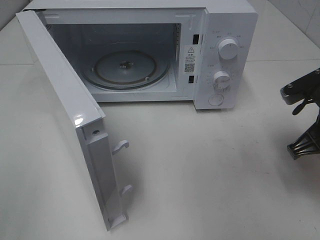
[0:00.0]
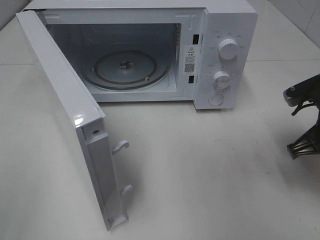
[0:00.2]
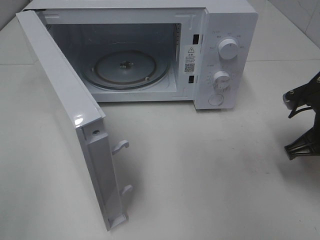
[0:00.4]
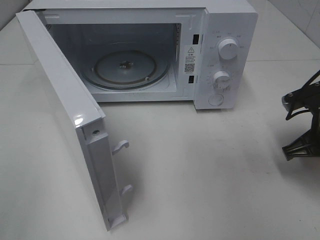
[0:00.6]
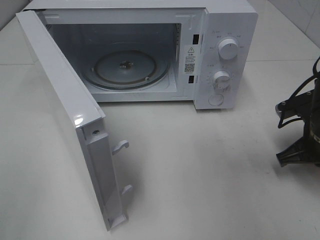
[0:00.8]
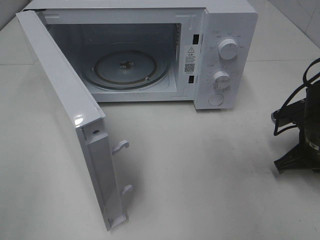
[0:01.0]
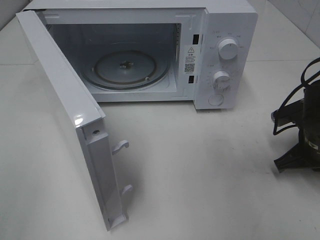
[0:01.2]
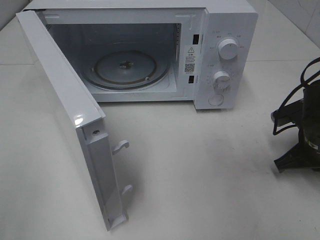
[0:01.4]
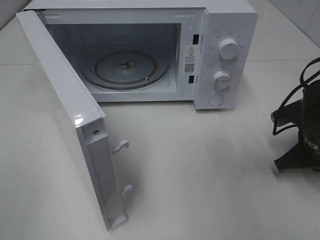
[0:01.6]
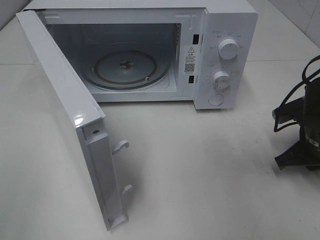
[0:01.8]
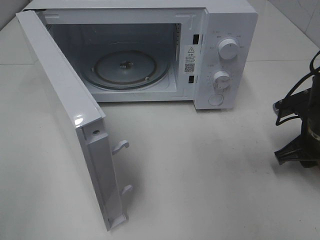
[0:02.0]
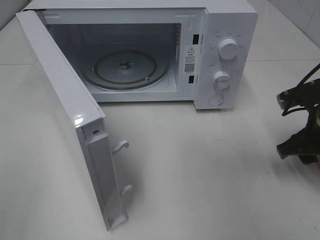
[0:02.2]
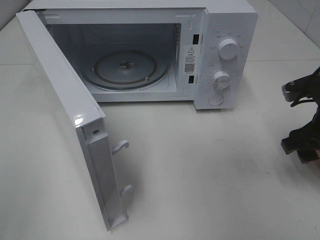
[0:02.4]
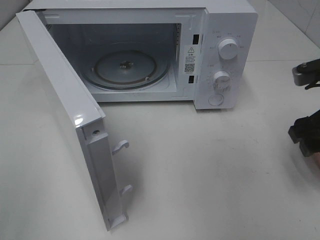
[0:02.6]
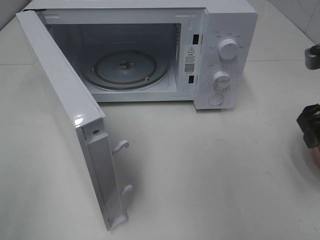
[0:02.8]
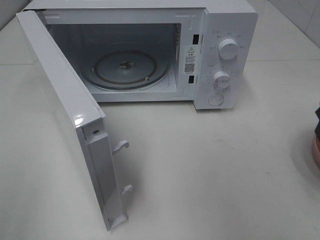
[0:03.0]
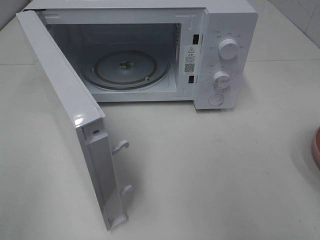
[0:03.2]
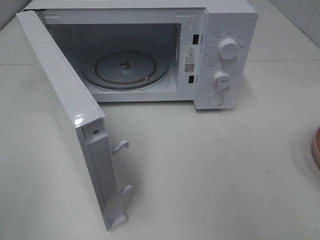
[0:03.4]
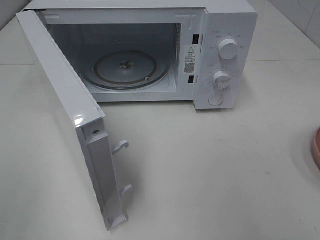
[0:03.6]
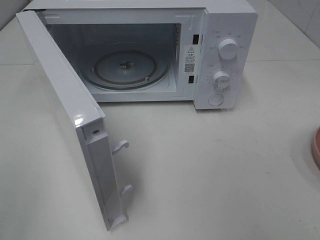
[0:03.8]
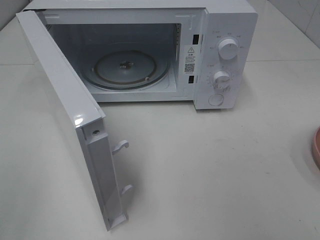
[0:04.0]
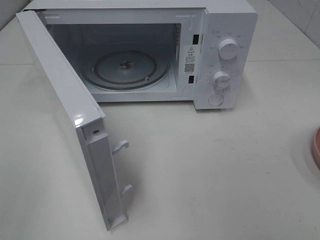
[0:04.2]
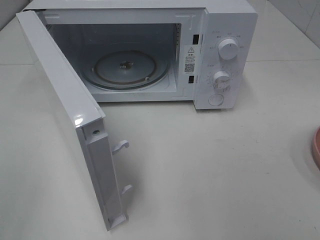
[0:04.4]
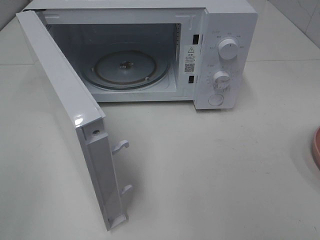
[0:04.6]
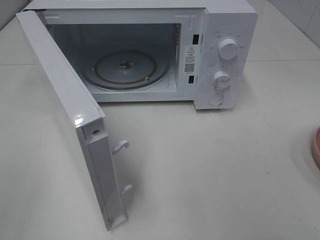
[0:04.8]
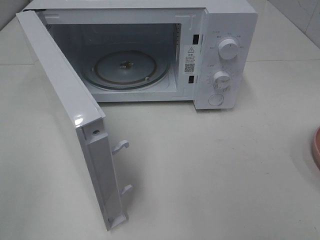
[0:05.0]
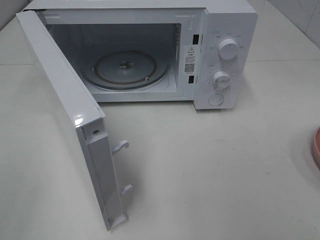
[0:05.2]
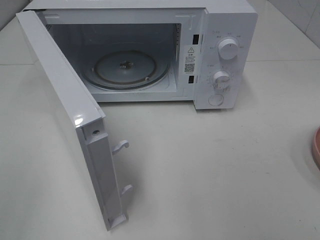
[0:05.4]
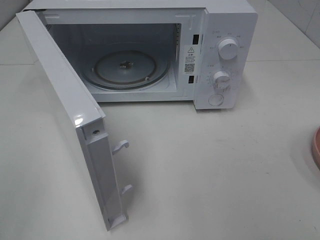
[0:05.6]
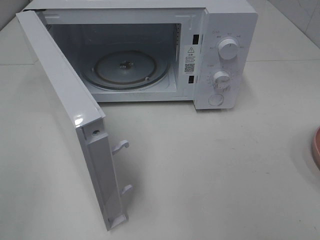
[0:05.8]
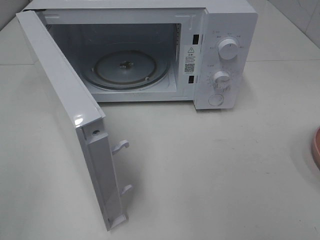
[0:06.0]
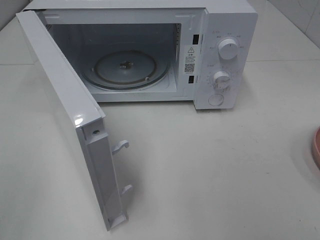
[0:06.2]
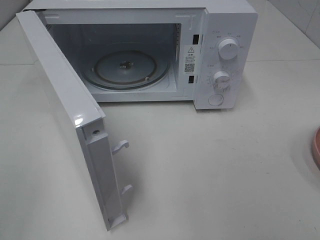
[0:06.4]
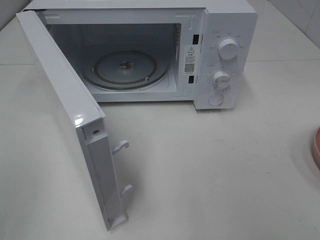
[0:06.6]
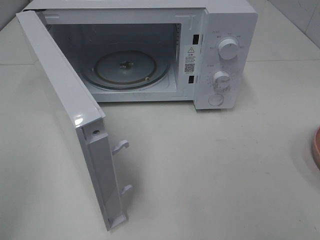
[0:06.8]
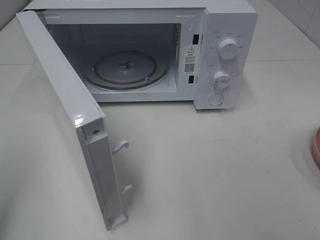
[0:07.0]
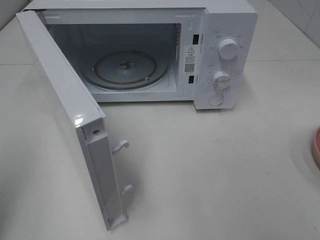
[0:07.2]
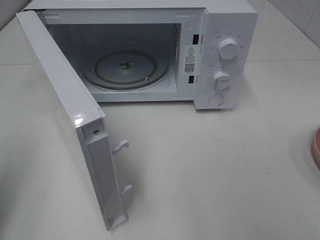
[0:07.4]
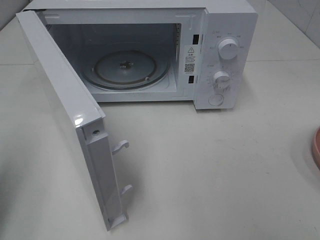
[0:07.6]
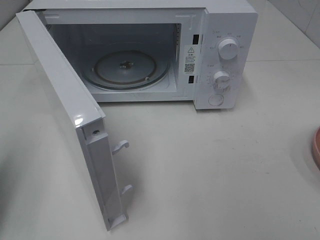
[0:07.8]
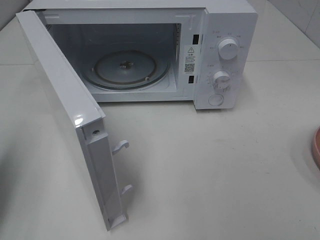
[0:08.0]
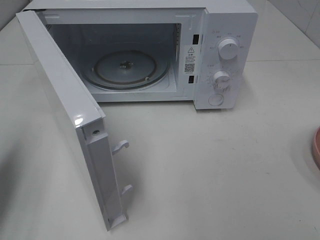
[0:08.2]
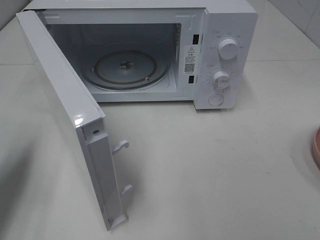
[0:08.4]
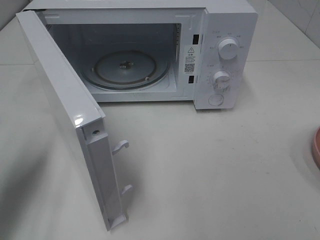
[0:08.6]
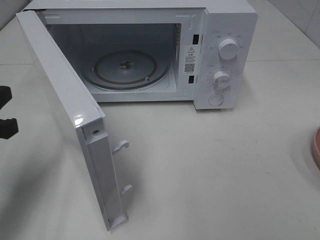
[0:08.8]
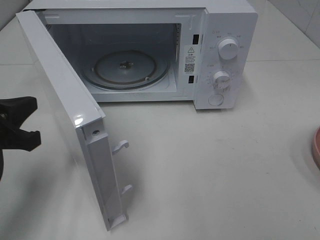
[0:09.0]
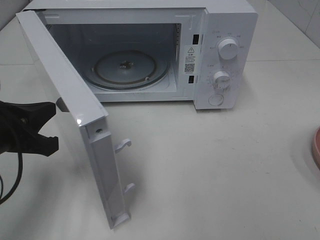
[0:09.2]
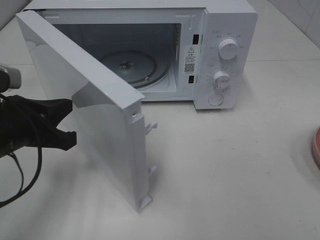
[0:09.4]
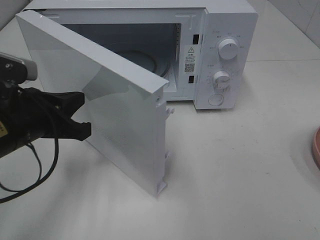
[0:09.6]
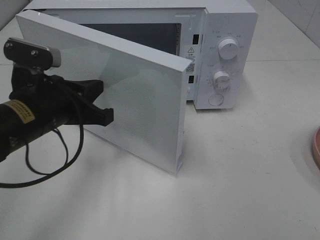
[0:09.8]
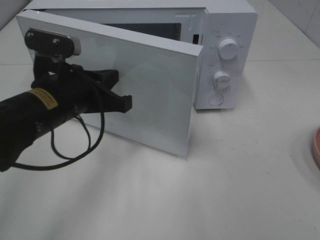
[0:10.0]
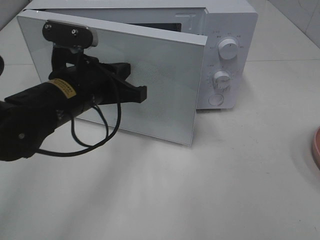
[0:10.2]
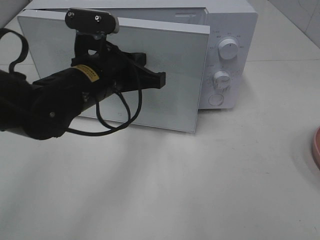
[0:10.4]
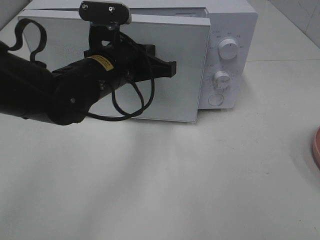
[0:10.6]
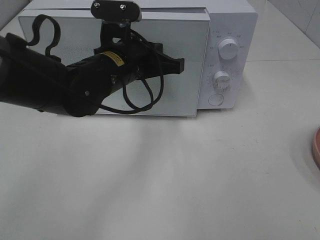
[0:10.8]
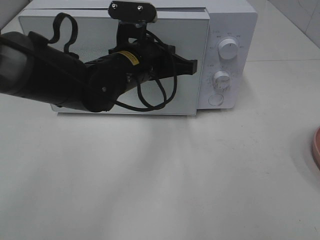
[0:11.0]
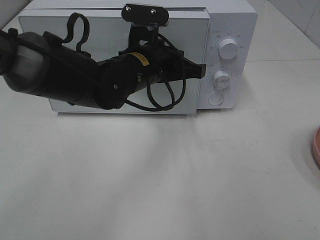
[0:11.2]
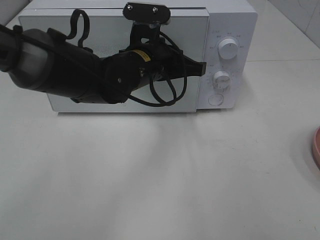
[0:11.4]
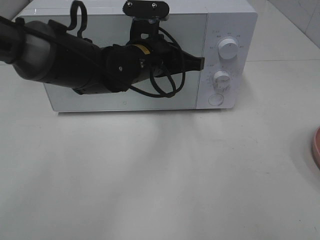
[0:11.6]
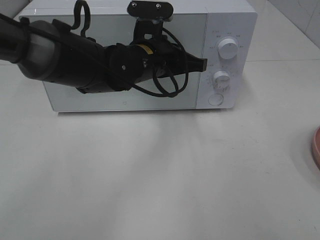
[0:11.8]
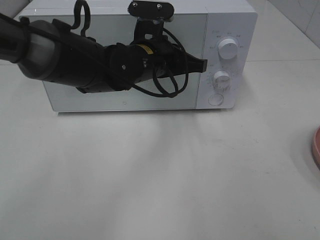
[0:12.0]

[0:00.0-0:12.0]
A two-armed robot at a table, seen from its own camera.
Task of the whole recording: Heat Sandwich.
Step, 0.0 to 2.4 s: Right hand: place the plate on the table.
0.0 to 1.6 s: The right gripper heads downward, covering approximately 10 cm.
1.6 to 3.0 s: The right gripper heads upward and backward, covering some 20 cm, and opens its fingers.
3.0 to 4.4 s: The right gripper is displaced backward by approximately 20 cm.
4.4 to 6.0 s: Both grippers stay put.
6.0 to 7.6 s: The left gripper goes approximately 15 cm forward, and closes.
7.6 to 9.0 s: The left gripper moves to the right, downward and forward, roughly 15 cm.
9.0 to 10.4 s: The left gripper shifts some 20 cm to the right and forward.
10.4 to 12.0 s: The left gripper moves to the right and forward, approximately 10 cm.

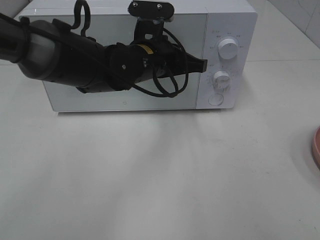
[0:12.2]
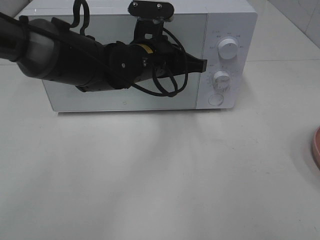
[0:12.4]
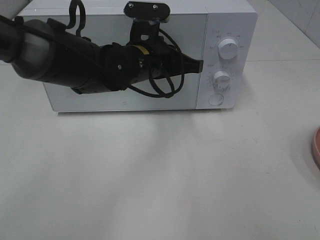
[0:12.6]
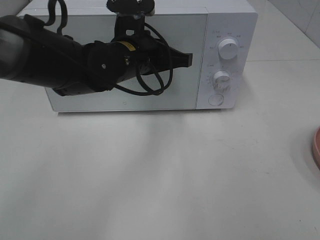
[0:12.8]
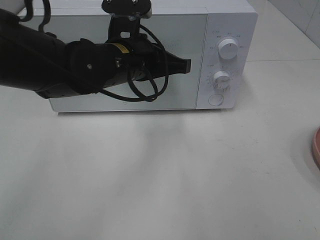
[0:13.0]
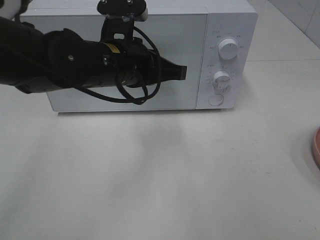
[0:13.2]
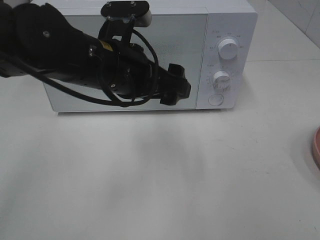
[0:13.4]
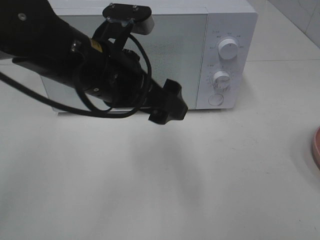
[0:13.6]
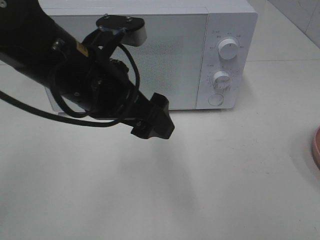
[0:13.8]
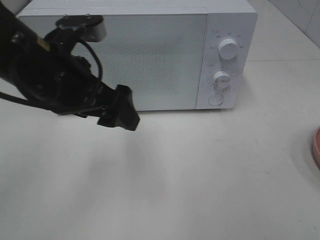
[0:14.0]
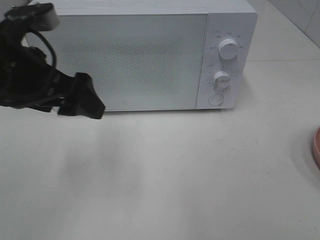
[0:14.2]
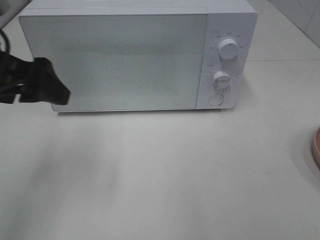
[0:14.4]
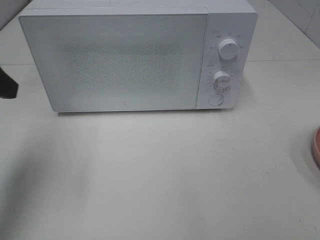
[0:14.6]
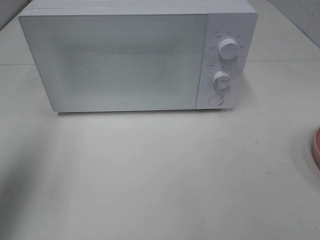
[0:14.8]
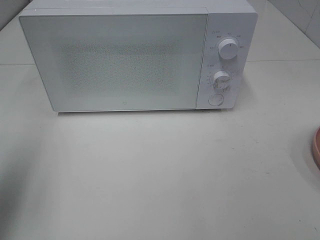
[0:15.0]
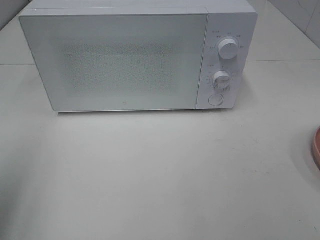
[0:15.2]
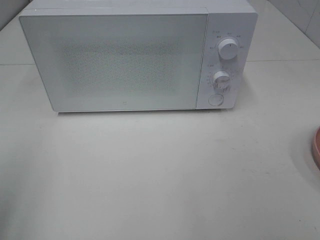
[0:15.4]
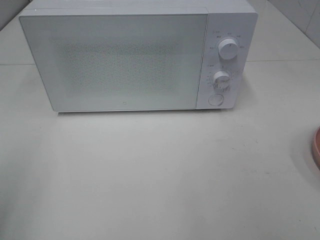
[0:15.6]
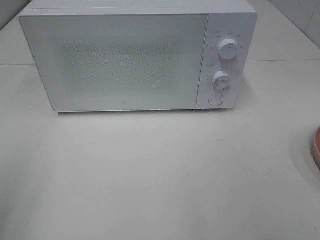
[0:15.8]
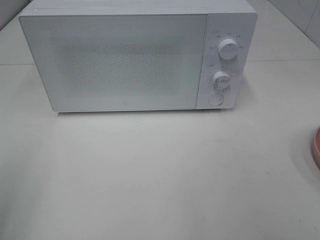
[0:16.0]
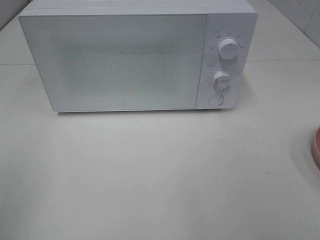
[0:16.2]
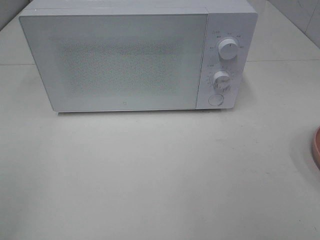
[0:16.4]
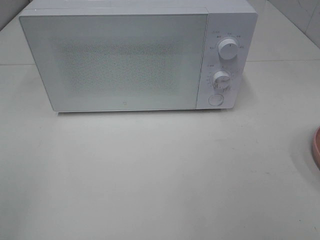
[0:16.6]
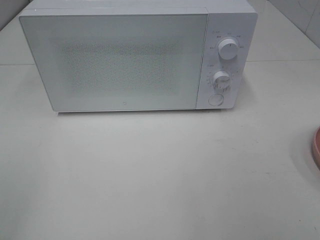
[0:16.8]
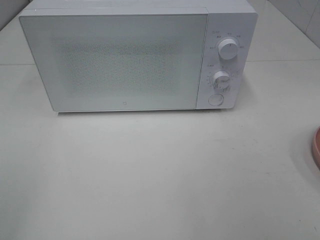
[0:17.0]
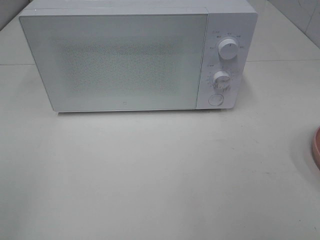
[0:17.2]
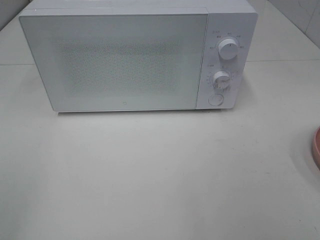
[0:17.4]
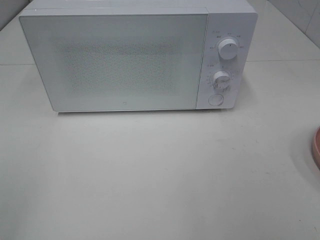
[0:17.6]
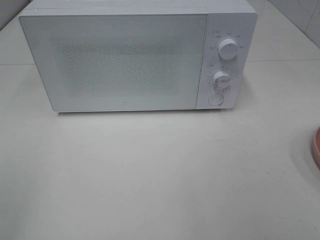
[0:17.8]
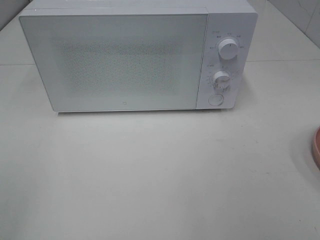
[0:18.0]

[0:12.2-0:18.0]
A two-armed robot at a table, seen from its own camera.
Task of the whole recording: Heat Sandwich.
12.2 to 13.6 s: The left gripper travels backward, upward and to the left by some 15 cm, and opens up.
13.6 to 15.0 s: The left gripper shifts about 25 cm to the left.
15.0 to 16.6 s: The left gripper travels backward by approximately 15 cm.
16.6 to 18.0 s: Neither gripper changes place.

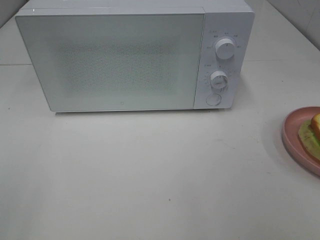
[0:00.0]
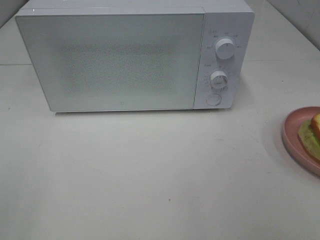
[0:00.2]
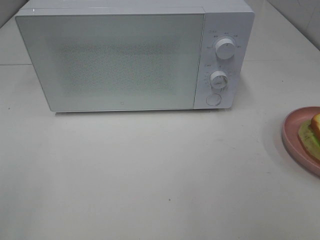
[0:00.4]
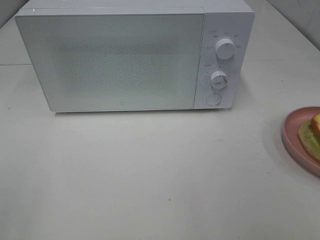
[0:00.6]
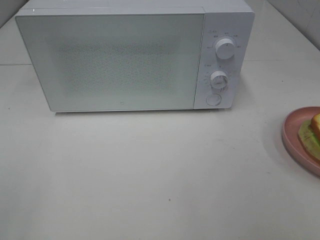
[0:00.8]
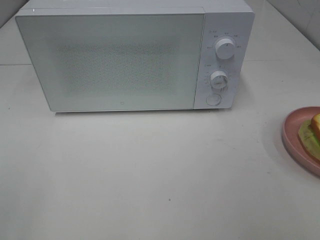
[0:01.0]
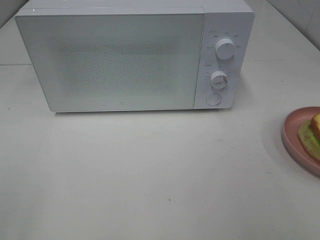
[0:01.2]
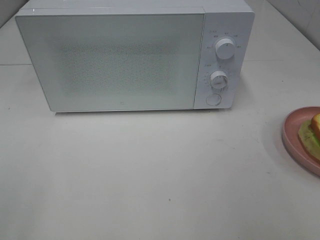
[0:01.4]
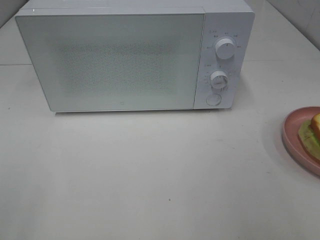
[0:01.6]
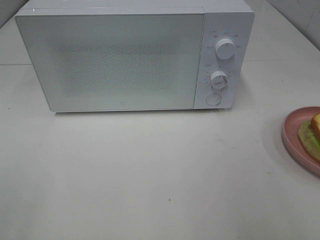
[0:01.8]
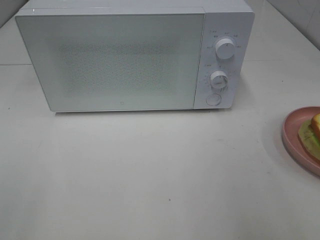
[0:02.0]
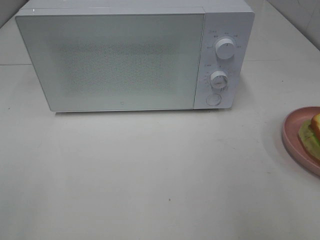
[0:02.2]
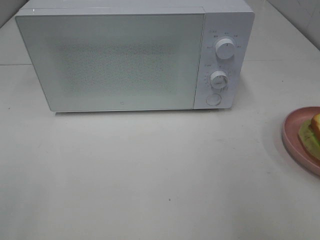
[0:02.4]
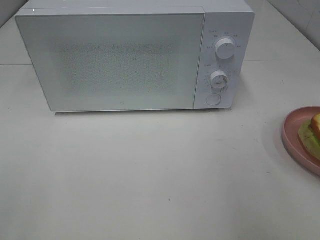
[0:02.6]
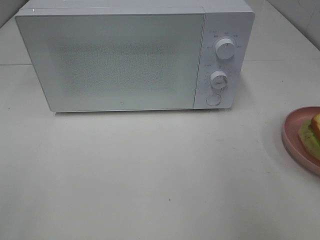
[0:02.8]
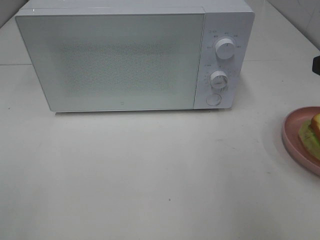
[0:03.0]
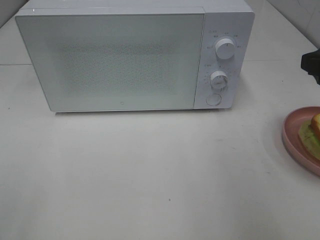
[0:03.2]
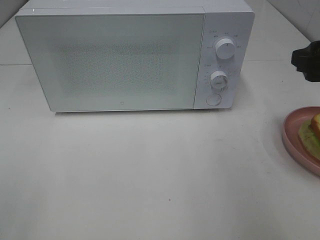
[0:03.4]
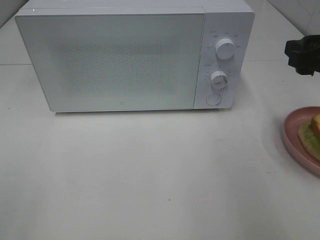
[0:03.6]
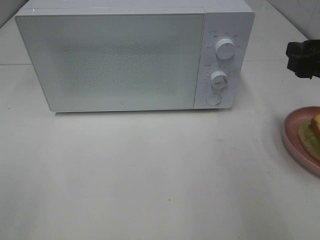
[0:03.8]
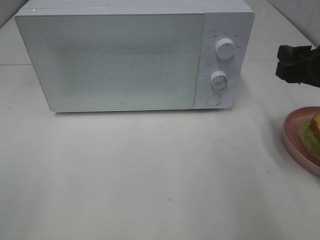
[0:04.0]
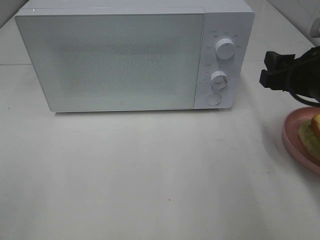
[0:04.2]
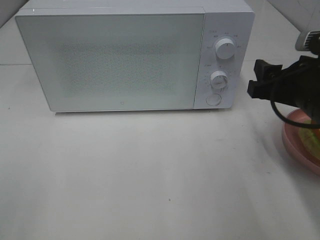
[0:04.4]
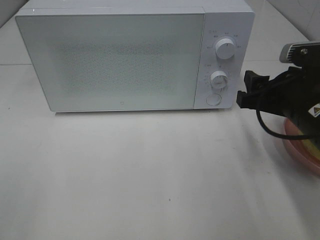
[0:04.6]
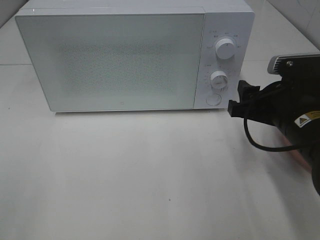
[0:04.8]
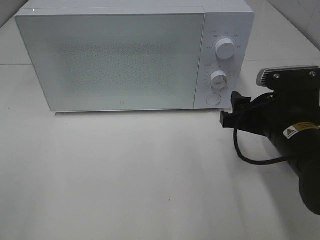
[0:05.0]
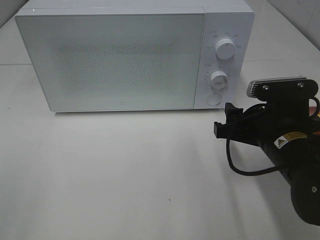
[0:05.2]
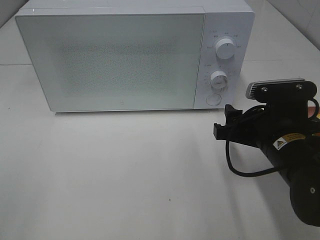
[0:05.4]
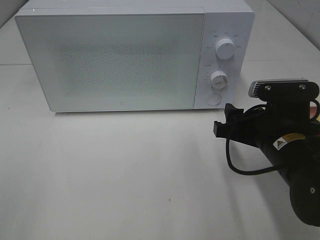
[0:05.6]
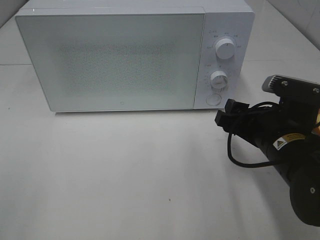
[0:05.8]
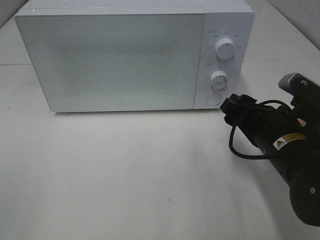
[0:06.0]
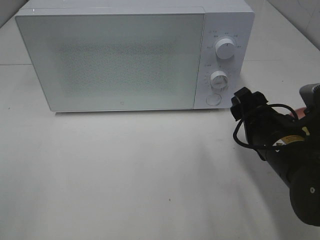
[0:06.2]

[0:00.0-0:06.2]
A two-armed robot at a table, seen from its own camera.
Task of the whole recording: Heat Sandwich.
1.6 to 3.2 s: The right gripper heads forward, covering approximately 15 cm.
3.2 to 4.6 s: The right gripper shifts approximately 10 cm downward and to the left.
4.6 to 6.2 s: The right gripper shifts by roughly 5 cm.
